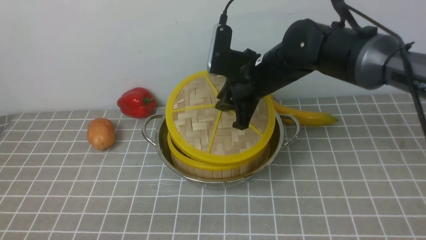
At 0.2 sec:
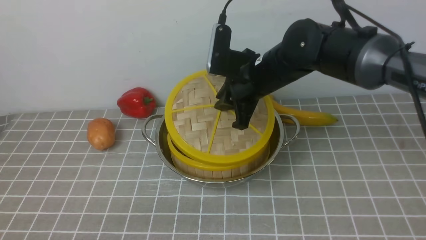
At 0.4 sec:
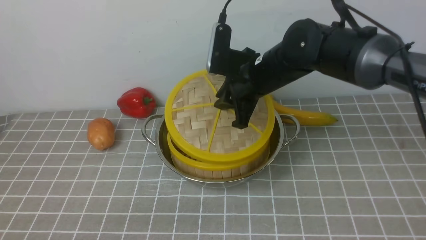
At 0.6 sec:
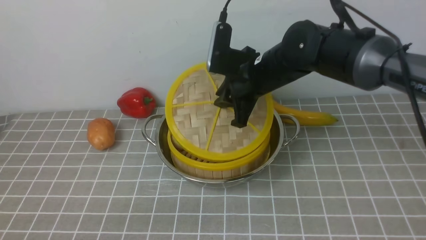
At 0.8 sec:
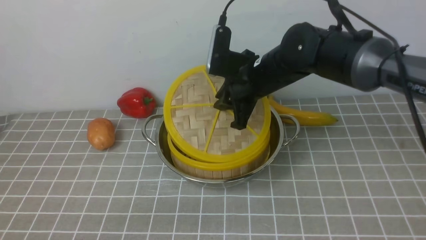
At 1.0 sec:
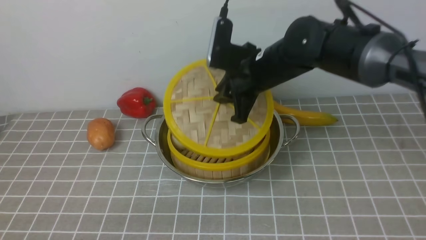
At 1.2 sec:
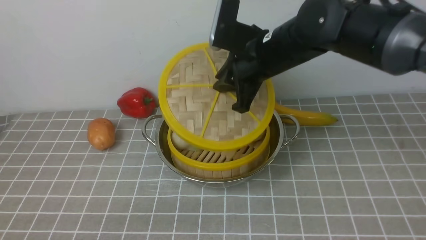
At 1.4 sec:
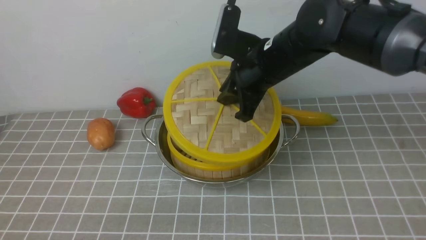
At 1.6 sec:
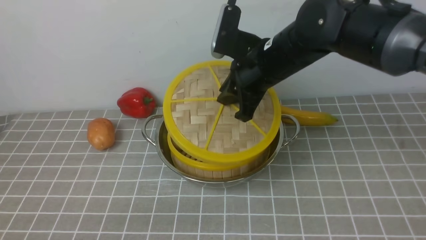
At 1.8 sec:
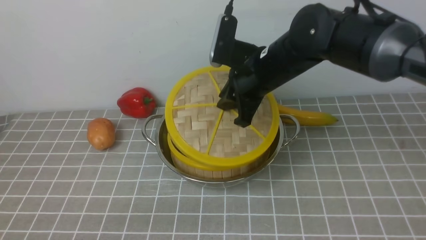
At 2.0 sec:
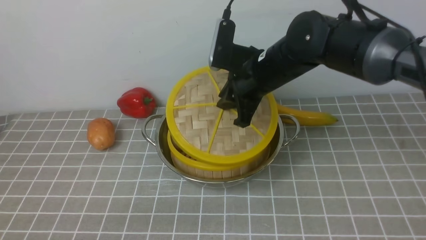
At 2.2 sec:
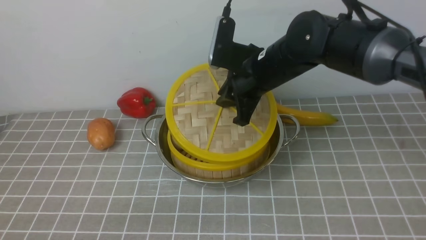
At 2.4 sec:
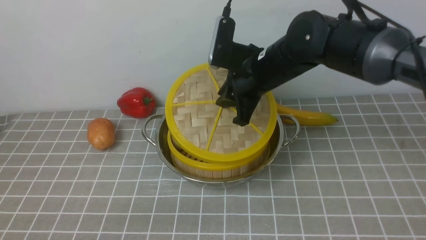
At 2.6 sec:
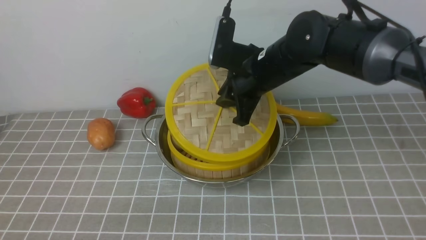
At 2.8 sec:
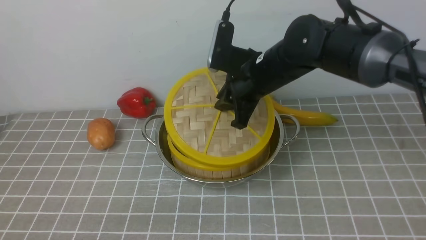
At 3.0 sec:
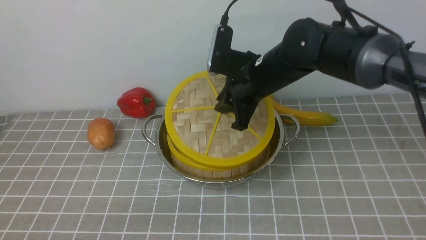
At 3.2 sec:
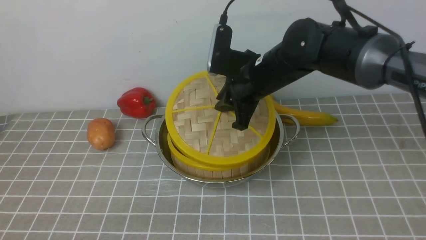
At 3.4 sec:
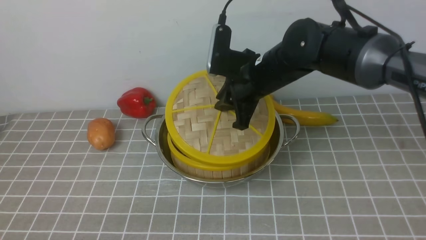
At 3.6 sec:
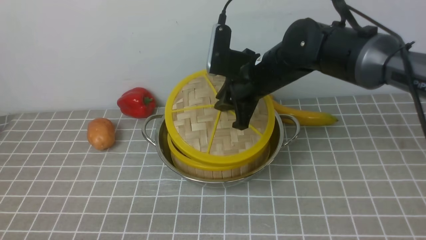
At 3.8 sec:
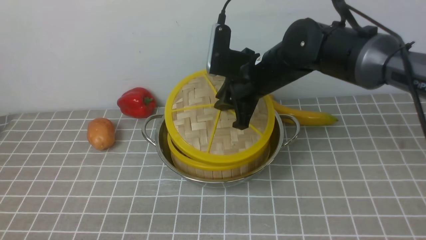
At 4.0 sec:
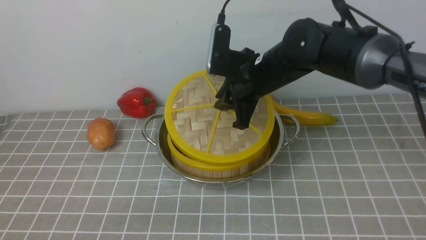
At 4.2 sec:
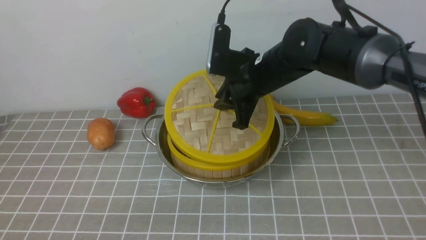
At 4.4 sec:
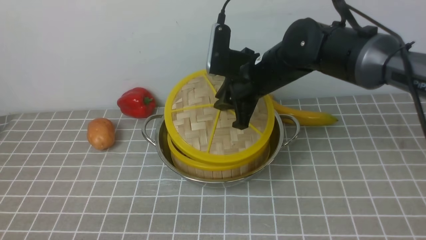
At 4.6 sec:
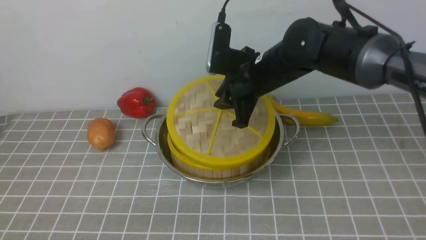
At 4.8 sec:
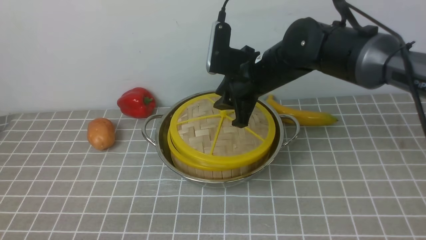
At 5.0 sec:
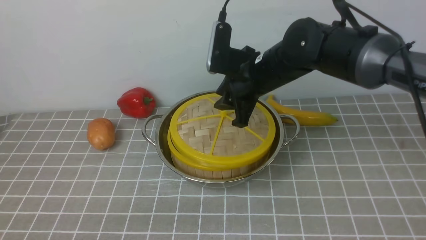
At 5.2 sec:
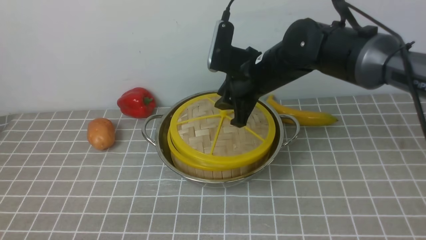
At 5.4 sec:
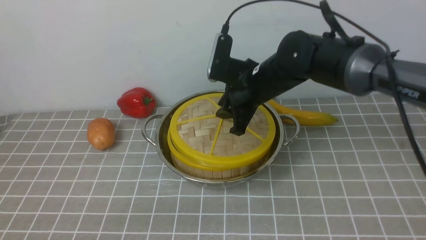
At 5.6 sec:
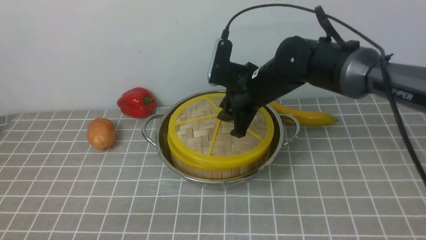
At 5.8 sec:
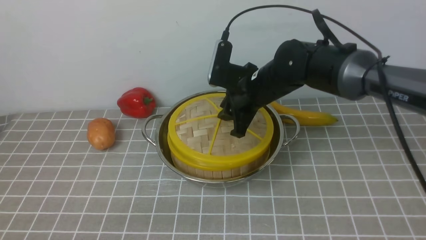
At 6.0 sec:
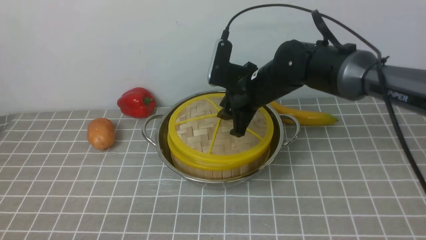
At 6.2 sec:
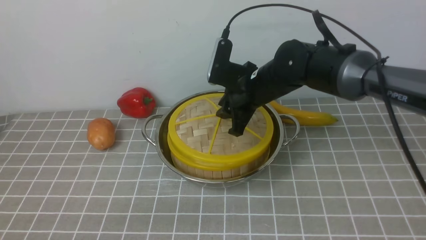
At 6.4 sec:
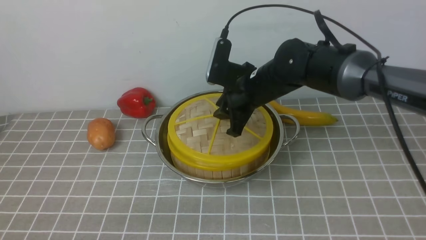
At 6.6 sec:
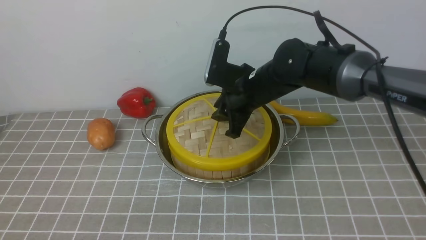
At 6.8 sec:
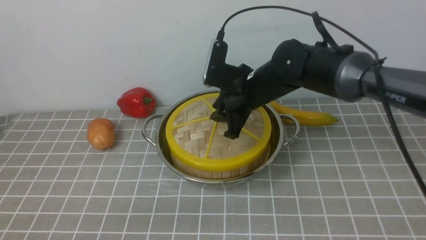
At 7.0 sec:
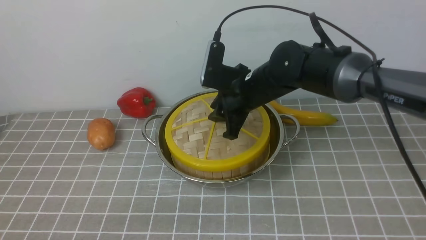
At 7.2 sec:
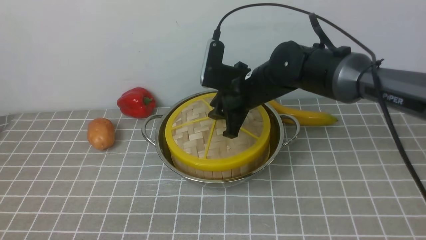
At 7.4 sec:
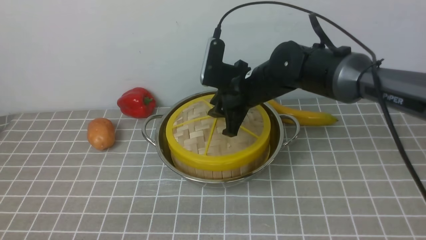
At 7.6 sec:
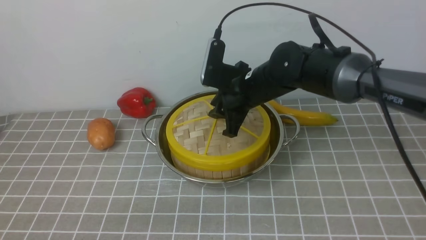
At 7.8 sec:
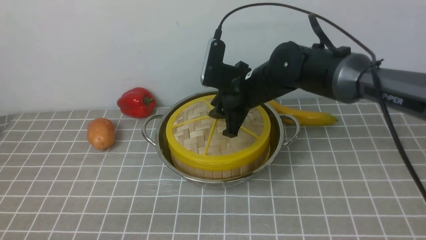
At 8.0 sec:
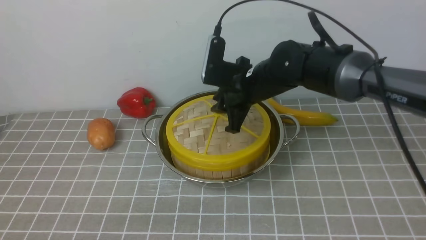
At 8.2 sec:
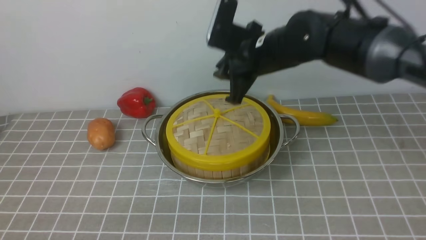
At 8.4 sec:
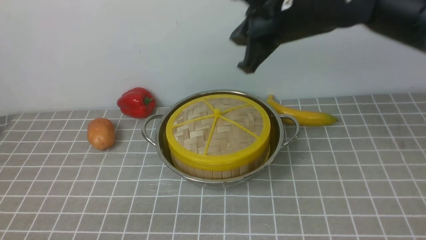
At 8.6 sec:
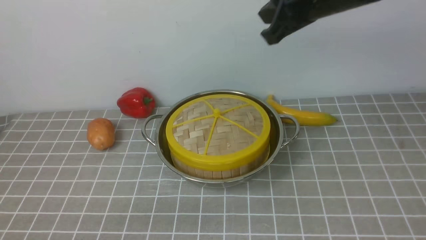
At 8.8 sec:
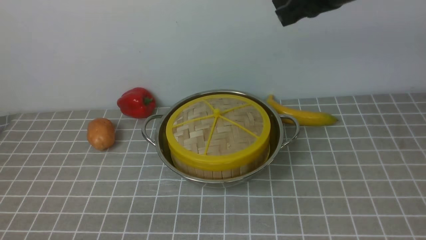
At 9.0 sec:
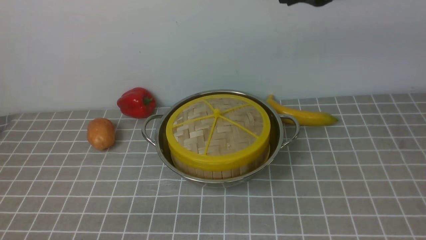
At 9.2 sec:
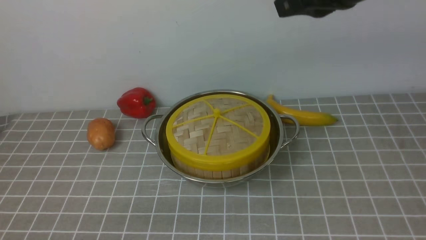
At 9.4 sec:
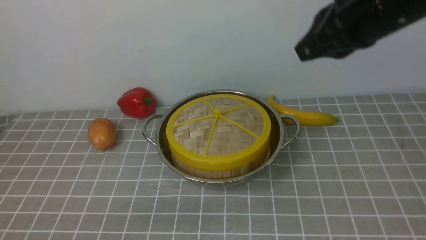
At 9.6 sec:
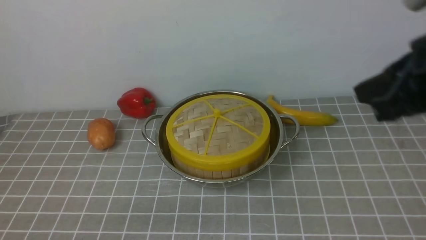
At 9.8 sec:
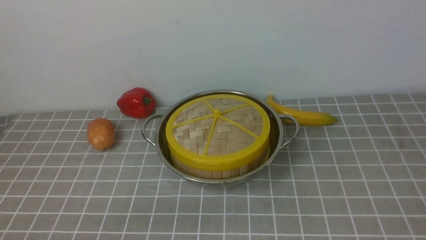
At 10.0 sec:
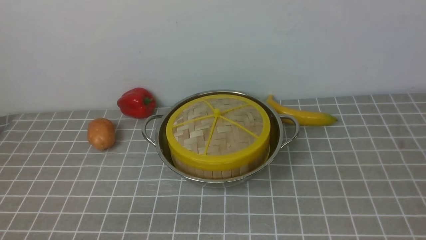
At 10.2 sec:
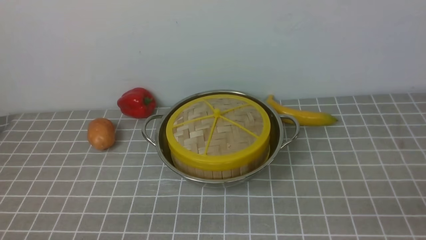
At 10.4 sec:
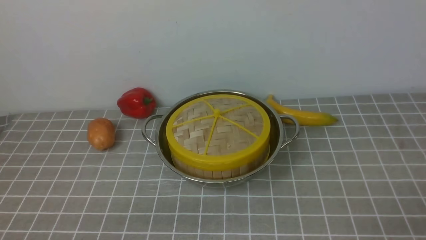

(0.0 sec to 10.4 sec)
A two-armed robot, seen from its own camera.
Task of the whole recording: place the steamer in the pot on the grey tablecloth, and put the lid on the steamer.
Step, 0.0 sec - 8.0 sec: use the right arm to place the steamer lid on the steamer.
0.0 sec - 3.0 sec: There are only small adjustments of the grippers.
3.0 sec - 4.4 sec: Neither gripper changes place.
4.4 sec - 7.4 sec: There are only small adjustments of the grippers.
7.4 sec - 9.0 sec: The right gripper heads upward, to the right and backward, covering roughly 25 cm, and closes.

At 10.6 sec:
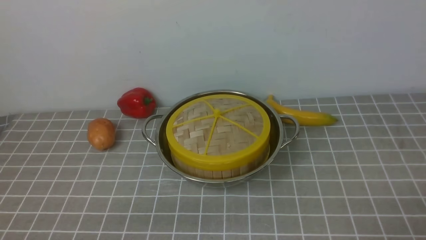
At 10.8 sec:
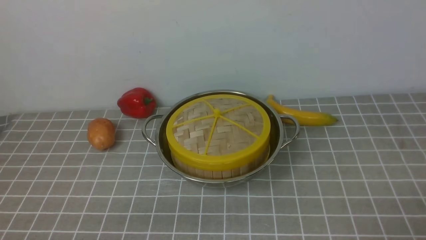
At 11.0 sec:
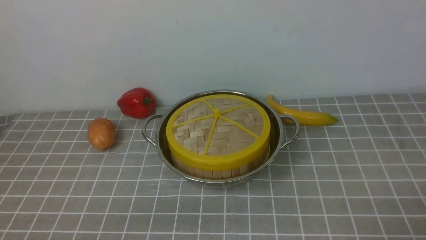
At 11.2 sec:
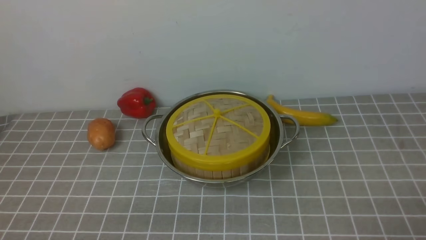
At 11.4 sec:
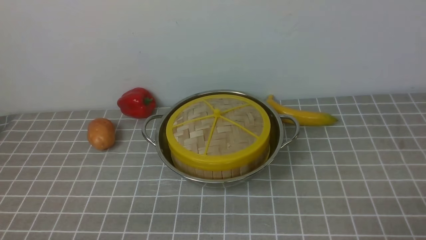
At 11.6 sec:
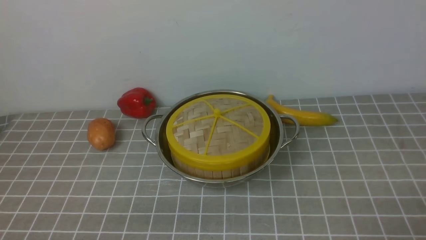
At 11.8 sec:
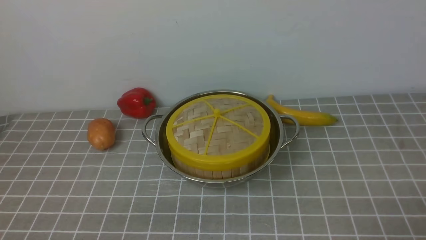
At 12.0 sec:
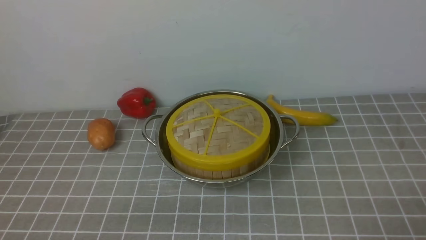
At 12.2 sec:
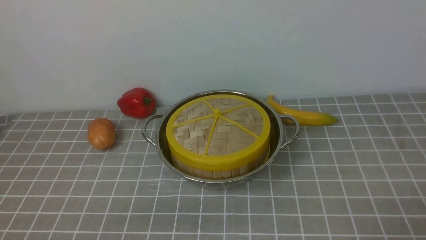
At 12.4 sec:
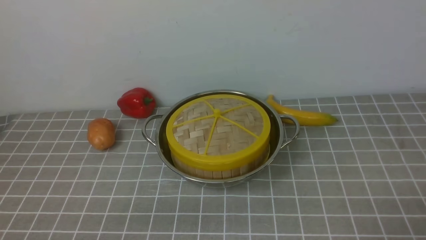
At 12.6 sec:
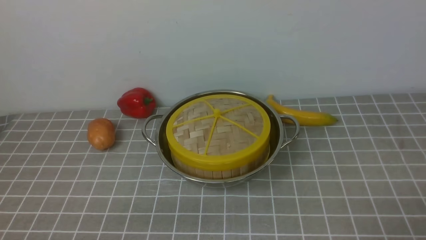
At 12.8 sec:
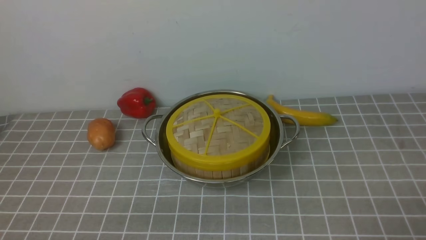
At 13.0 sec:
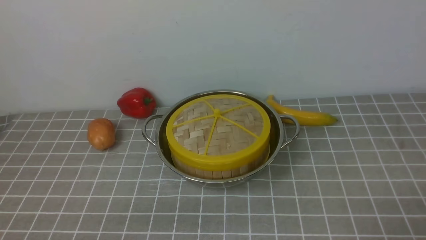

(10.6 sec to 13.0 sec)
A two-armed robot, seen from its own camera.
Task of the whole recording: place the steamer in the pot on the grey tablecloth, and put the lid on the steamer.
11.8 sec - 13.0 sec: The two grippers keep their place.
